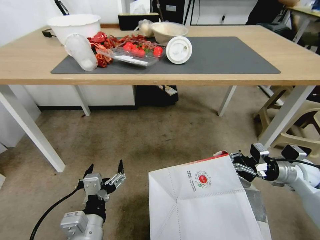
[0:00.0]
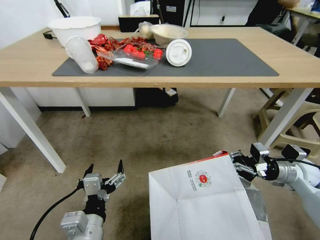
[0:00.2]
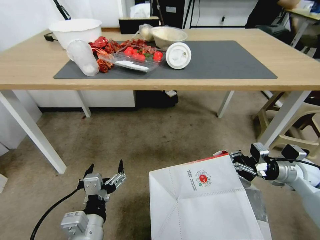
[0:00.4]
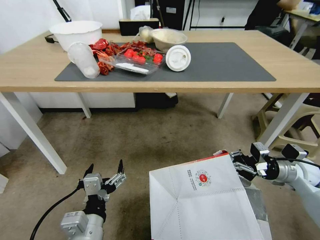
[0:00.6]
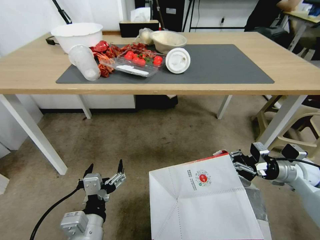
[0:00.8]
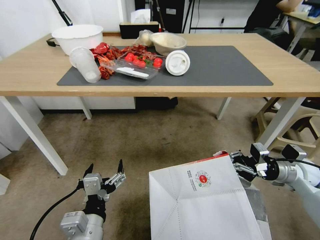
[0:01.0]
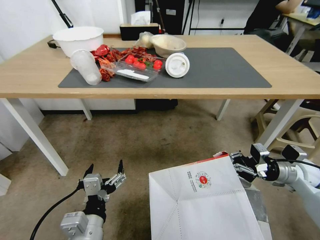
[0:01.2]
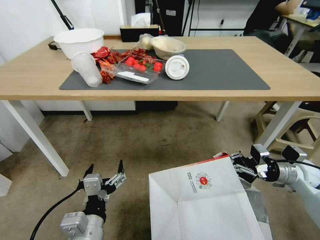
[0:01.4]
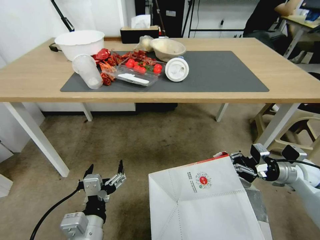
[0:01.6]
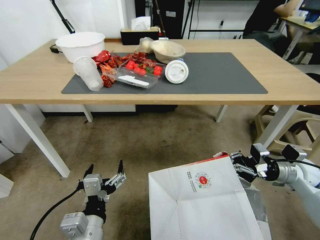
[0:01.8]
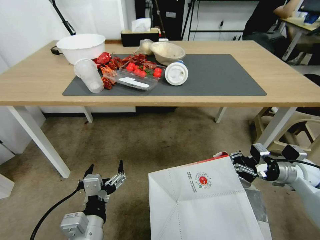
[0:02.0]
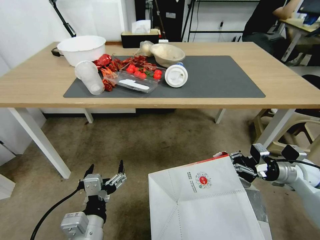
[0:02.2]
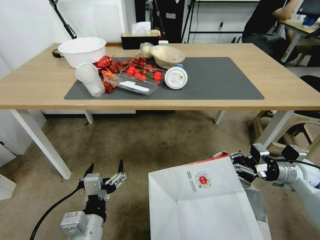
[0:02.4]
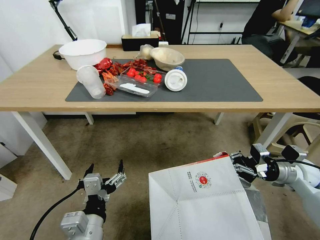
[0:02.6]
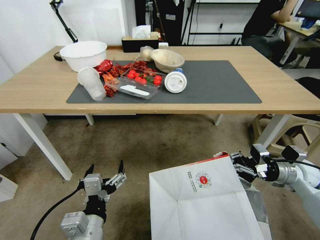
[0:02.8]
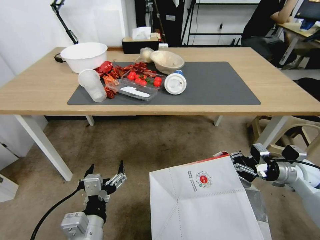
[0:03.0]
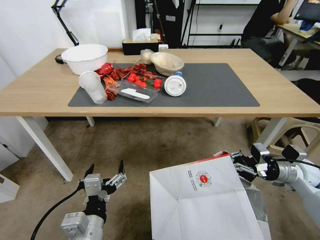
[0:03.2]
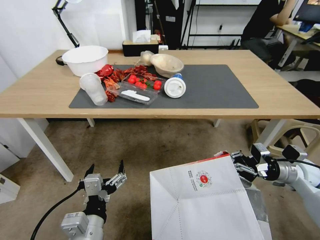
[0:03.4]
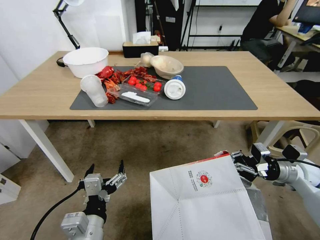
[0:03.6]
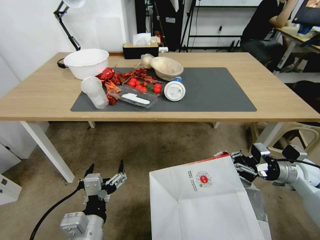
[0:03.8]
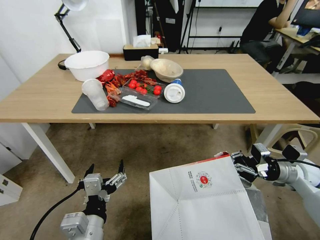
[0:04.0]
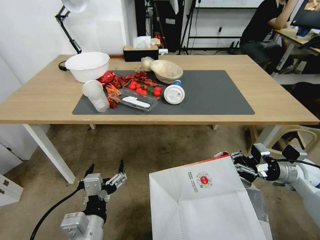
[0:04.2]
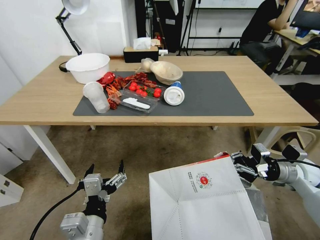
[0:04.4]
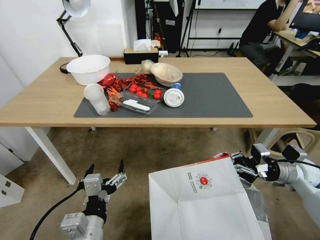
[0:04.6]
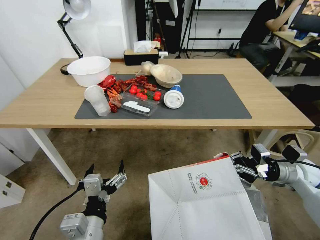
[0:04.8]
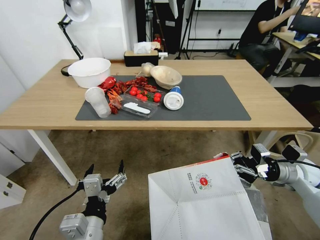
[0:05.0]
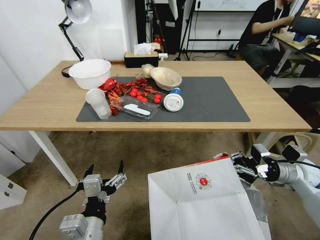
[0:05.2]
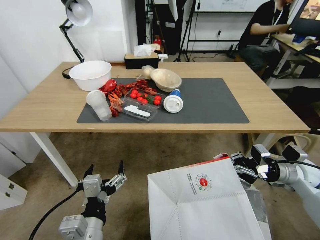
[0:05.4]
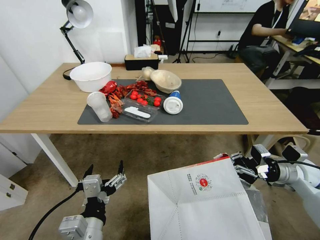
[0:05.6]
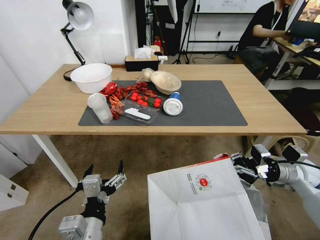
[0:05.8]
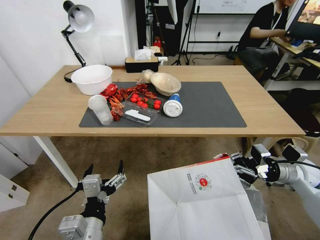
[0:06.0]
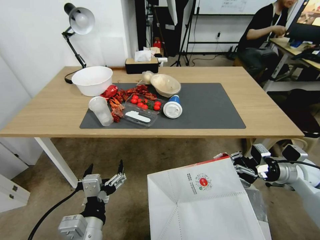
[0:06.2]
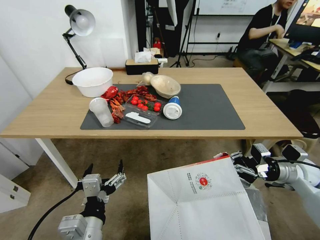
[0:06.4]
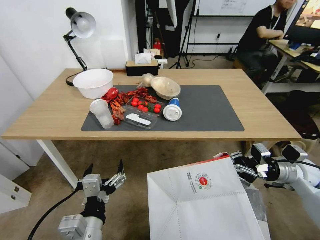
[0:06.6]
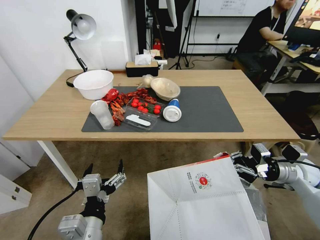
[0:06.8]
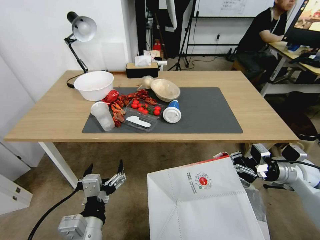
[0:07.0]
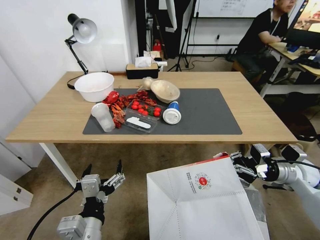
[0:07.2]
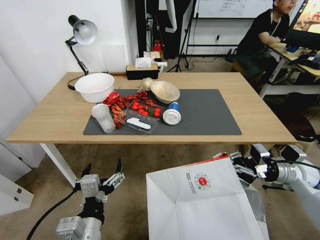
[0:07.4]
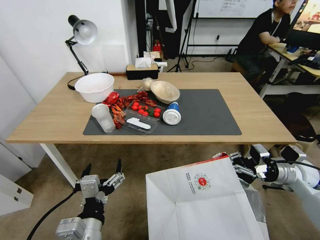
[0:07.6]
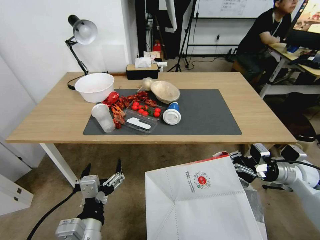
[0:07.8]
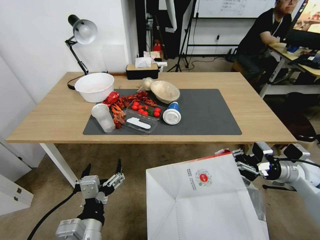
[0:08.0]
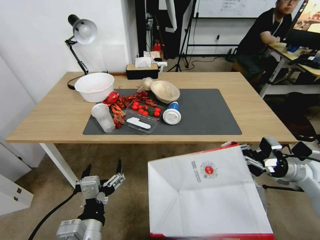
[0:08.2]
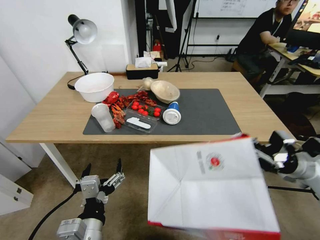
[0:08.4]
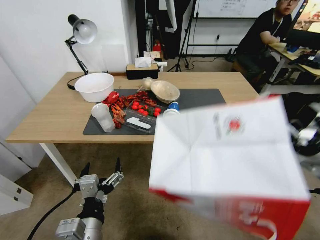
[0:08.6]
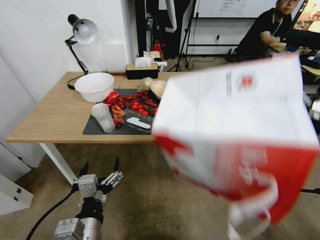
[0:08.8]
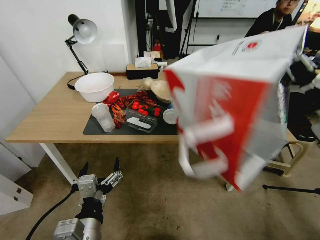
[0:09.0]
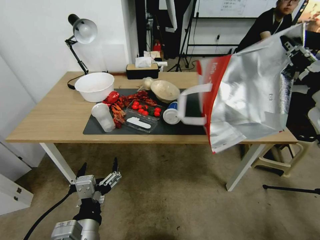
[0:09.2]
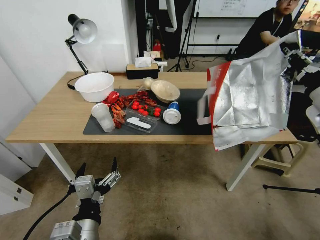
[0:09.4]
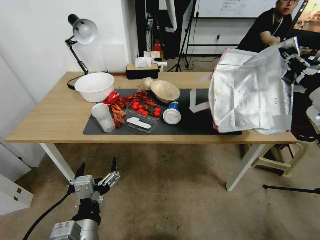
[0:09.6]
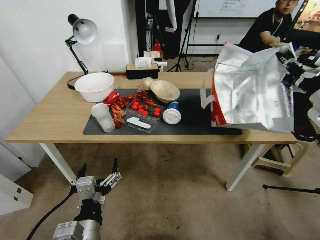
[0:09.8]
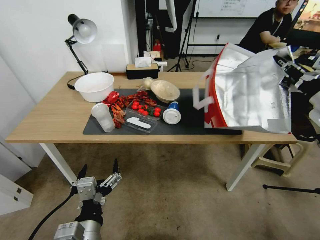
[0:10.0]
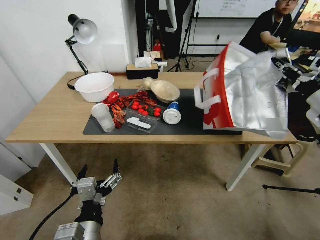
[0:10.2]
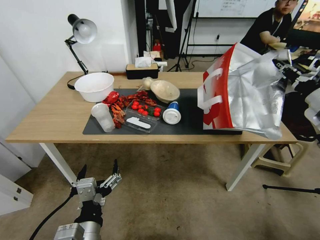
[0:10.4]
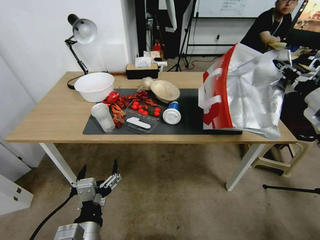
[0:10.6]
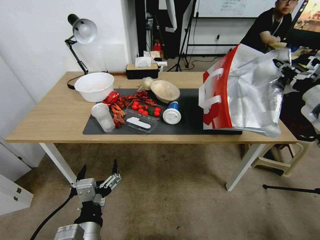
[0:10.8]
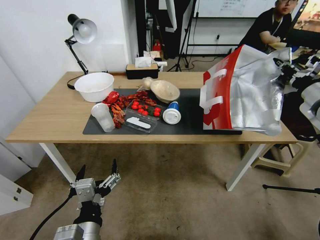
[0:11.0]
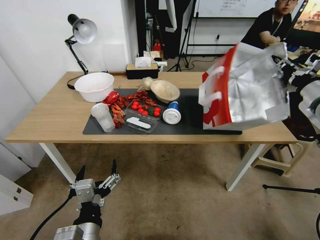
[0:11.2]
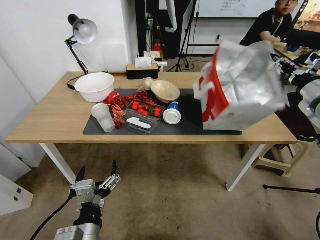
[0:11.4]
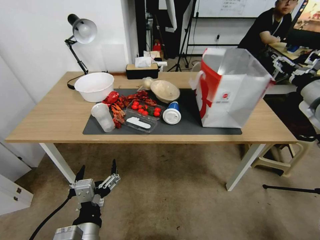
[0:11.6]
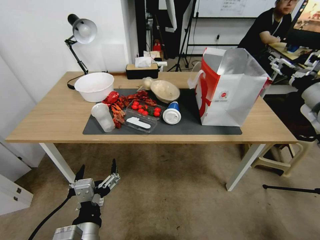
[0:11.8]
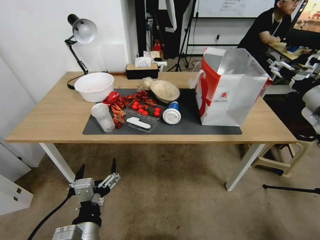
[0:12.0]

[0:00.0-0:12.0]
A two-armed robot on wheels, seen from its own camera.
Task of the whole recording: Pick up the food delivery bag from the floor and place it on the table.
0:07.6 to 0:09.0: The right gripper is displaced upward by approximately 20 cm.
0:09.0 to 0:10.4: The right gripper goes roughly 10 cm forward and to the right.
0:10.4 to 0:12.0: The right gripper opens.

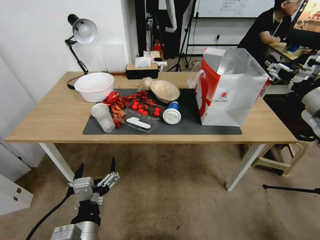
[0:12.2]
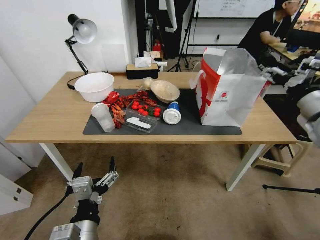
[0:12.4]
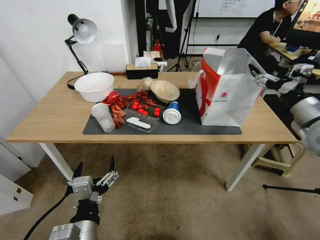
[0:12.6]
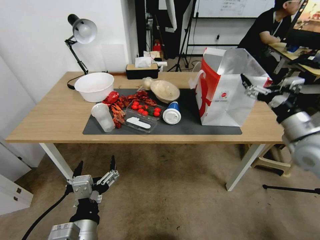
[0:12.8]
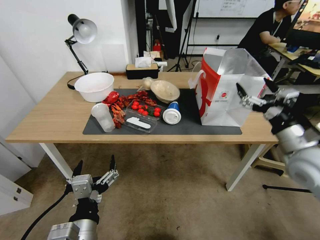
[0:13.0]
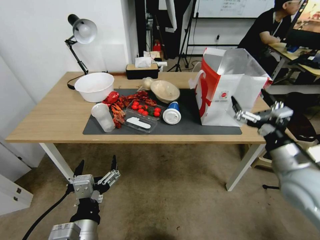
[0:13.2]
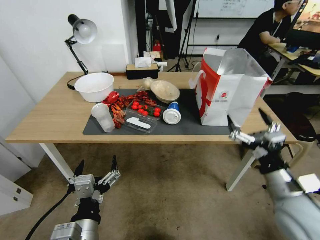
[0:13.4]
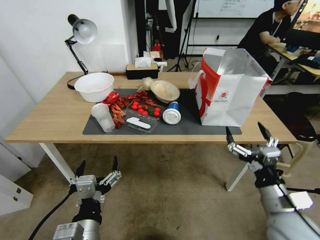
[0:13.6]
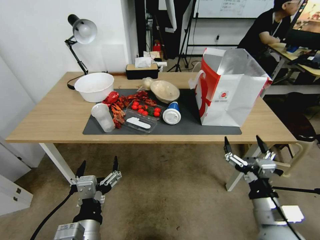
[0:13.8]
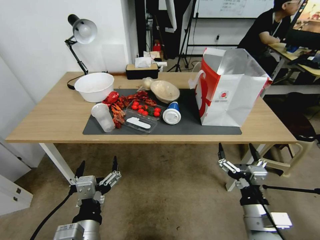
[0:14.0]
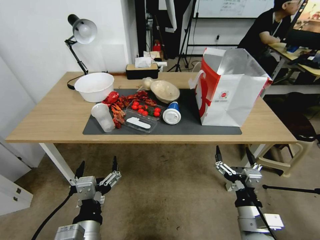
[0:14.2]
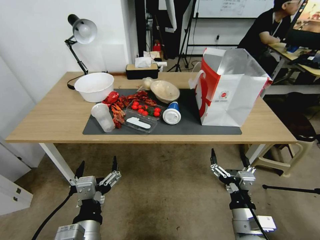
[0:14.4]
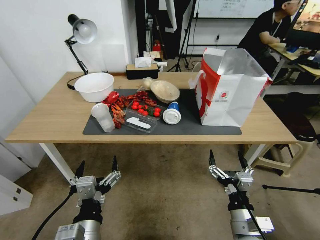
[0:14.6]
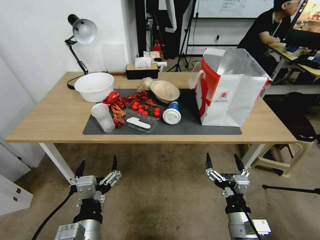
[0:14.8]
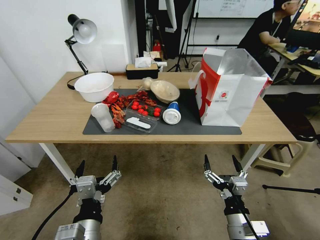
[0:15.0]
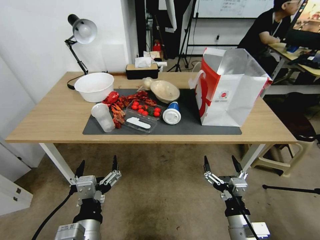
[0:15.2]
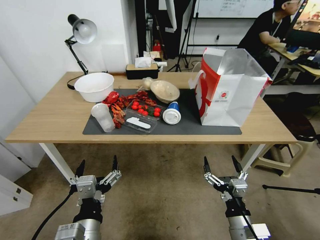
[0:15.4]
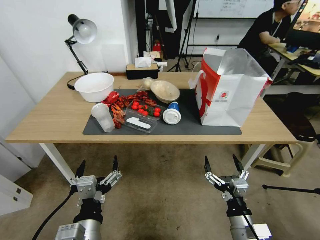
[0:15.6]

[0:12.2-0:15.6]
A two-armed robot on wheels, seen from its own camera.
Task of the whole recording: Pick up the food delivery bag from the floor and place it on the table.
0:12.2 to 0:13.8: The right gripper shifts roughly 35 cm backward, downward and to the left.
0:13.8 to 0:15.6: The right gripper shifts roughly 5 cm downward.

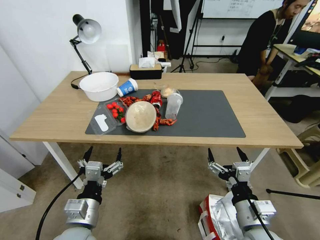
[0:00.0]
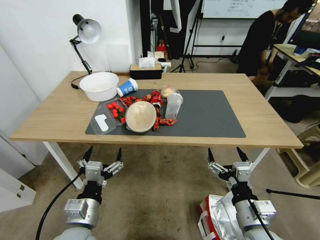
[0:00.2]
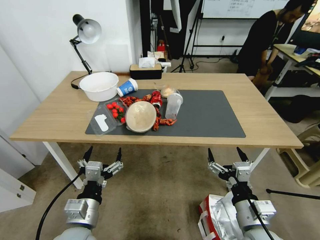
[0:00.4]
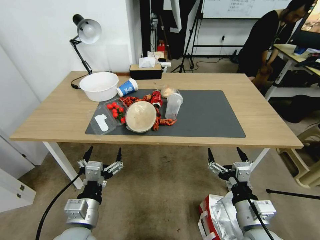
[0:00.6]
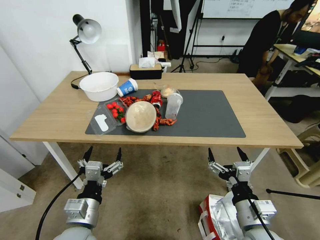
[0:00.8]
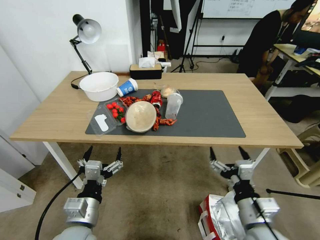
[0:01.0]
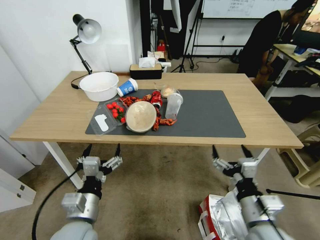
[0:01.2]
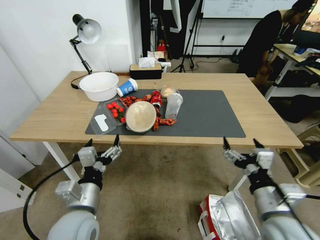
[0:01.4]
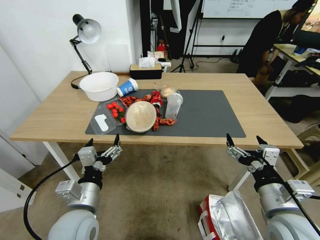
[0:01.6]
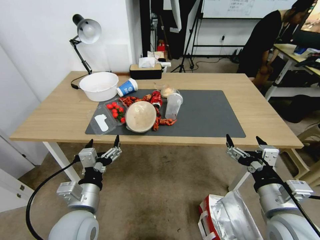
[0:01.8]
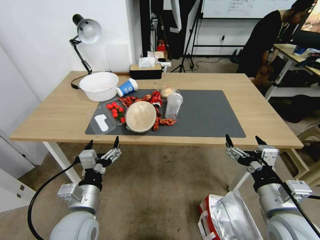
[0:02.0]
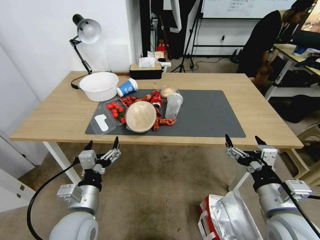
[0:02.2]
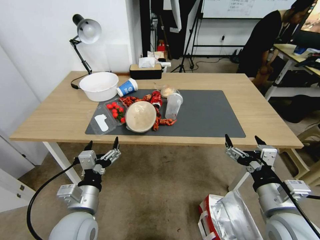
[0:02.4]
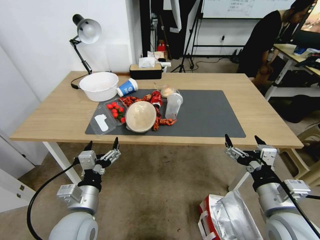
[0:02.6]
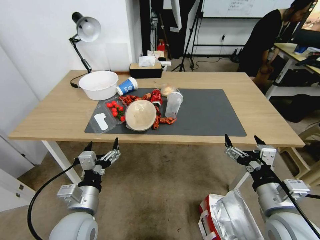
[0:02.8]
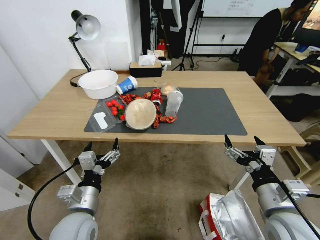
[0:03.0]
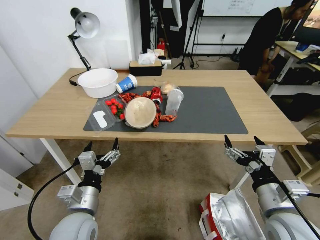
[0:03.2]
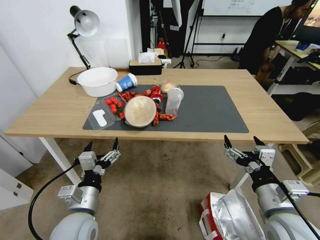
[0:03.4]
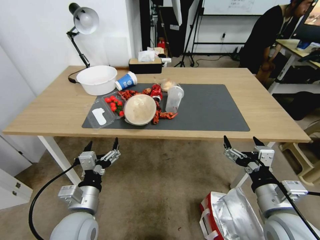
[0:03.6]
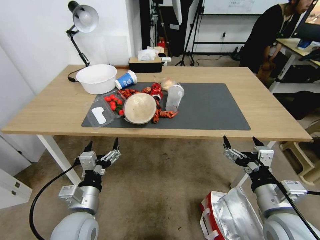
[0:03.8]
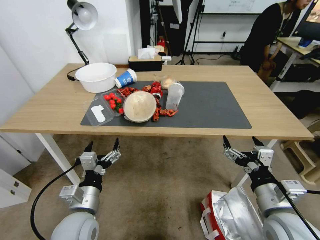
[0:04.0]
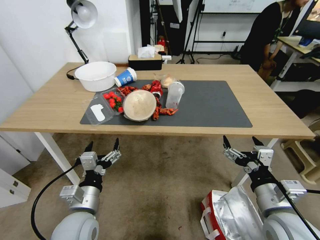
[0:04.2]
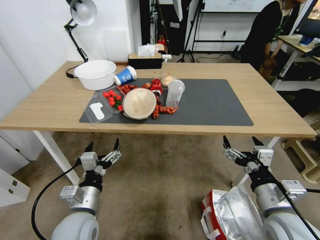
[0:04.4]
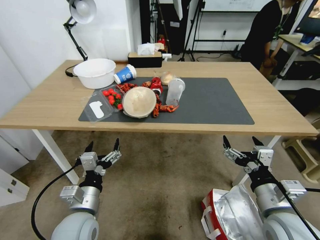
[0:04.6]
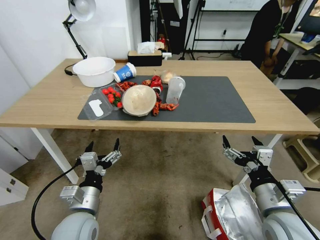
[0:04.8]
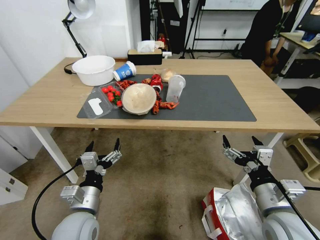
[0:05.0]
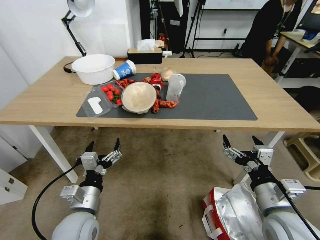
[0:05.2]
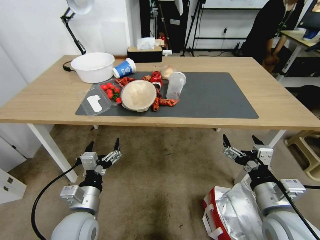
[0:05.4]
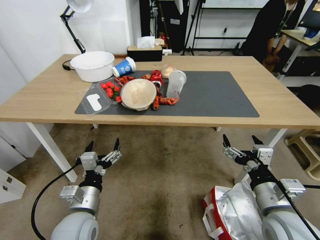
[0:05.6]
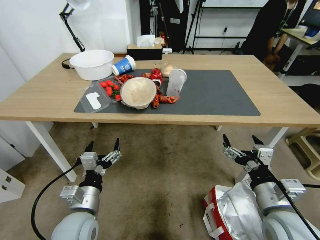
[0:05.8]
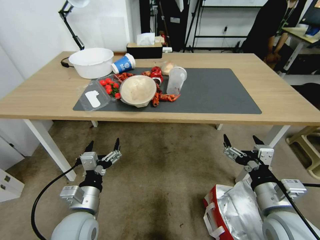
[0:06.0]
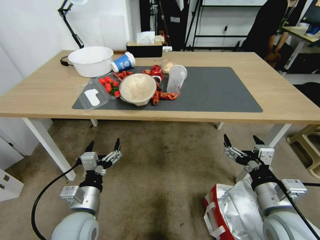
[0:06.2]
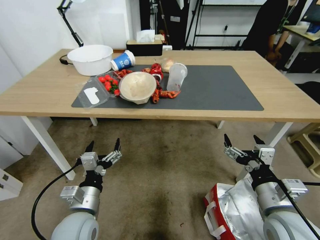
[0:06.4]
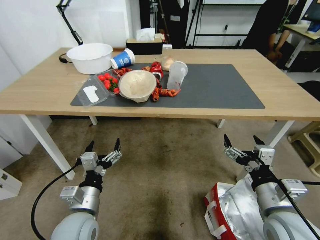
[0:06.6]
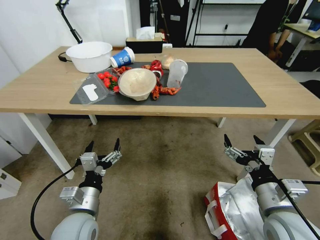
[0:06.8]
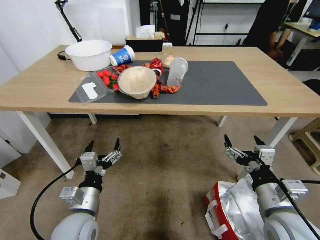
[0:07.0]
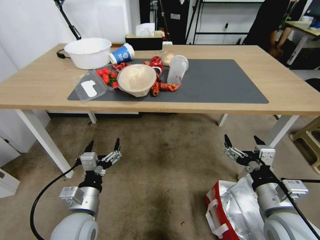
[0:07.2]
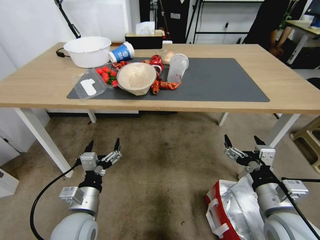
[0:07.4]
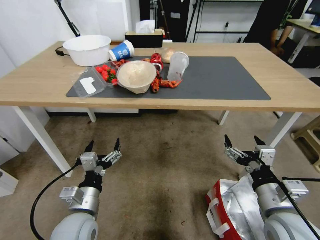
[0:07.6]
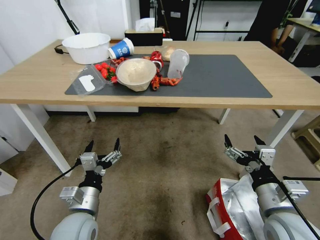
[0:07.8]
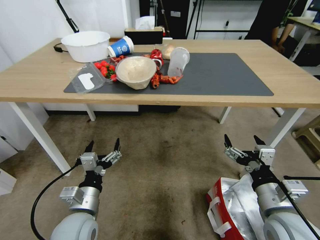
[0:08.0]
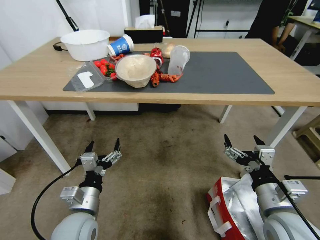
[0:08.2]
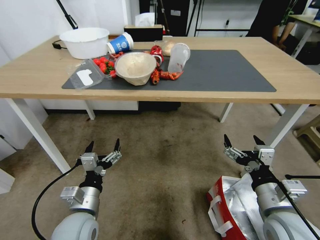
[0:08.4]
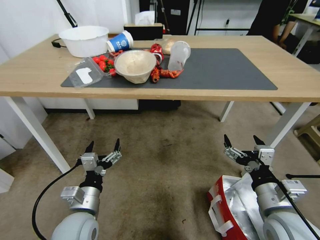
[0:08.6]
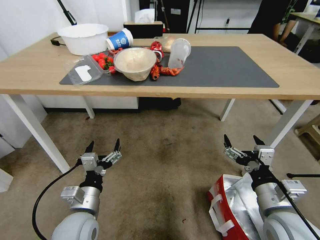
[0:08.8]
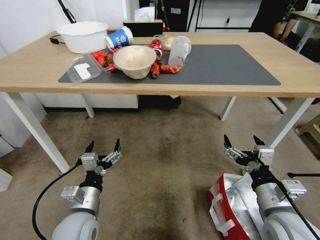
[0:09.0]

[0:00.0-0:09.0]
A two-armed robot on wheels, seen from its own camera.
Task of the whole recording: Pick up the food delivery bag from the floor and place it on the table.
0:01.6 to 0:03.0: The grippers move only a little.
